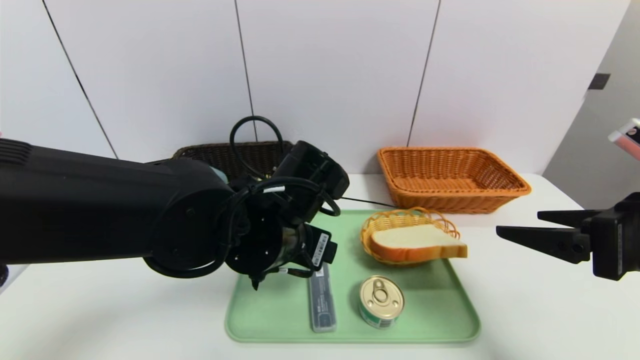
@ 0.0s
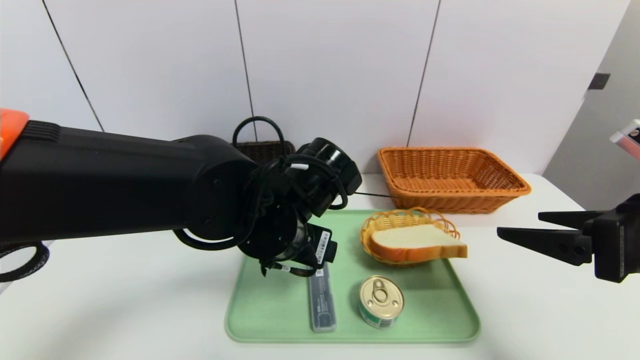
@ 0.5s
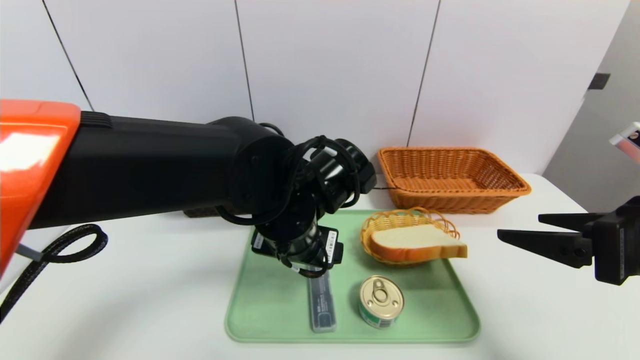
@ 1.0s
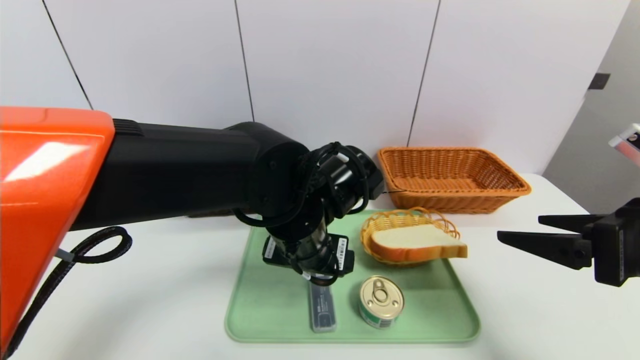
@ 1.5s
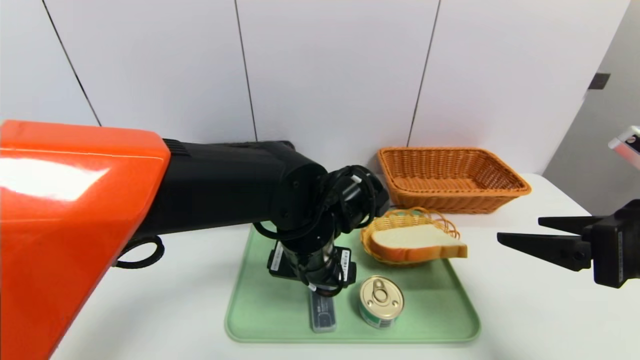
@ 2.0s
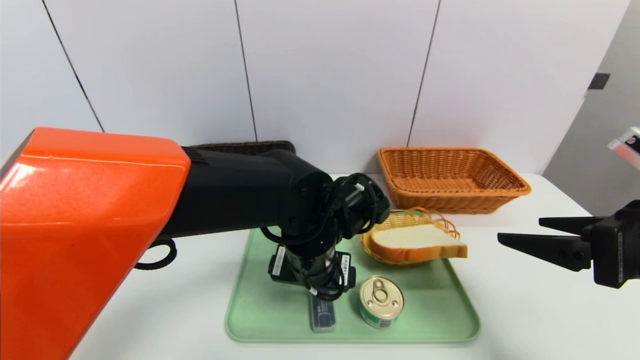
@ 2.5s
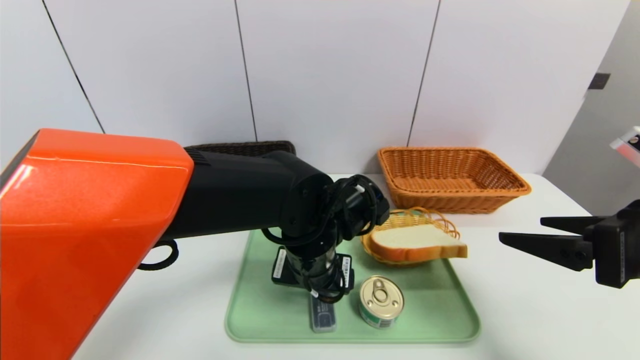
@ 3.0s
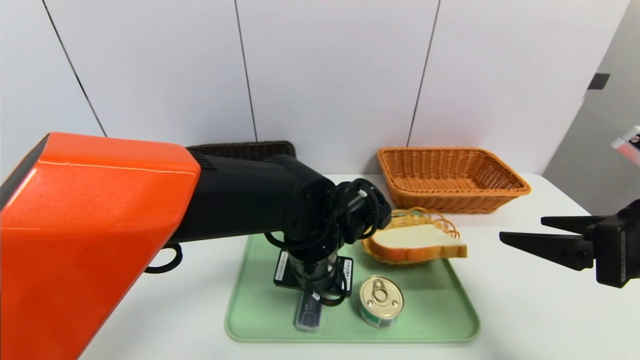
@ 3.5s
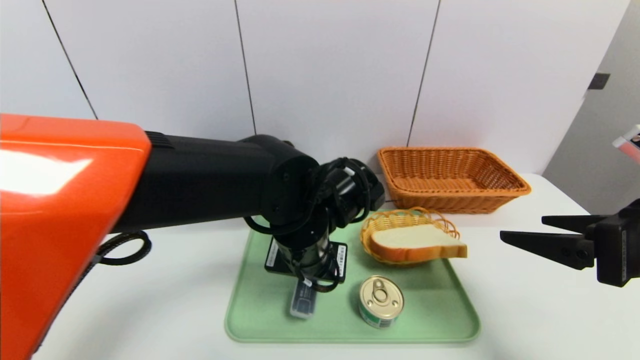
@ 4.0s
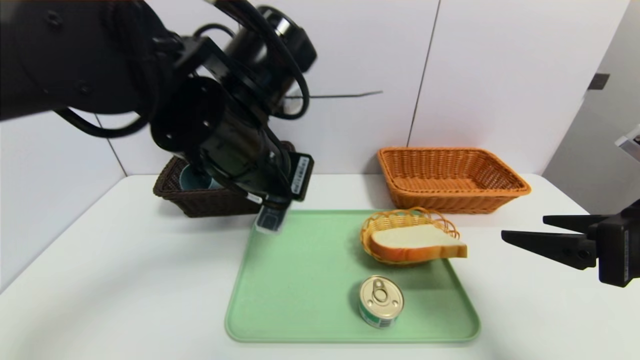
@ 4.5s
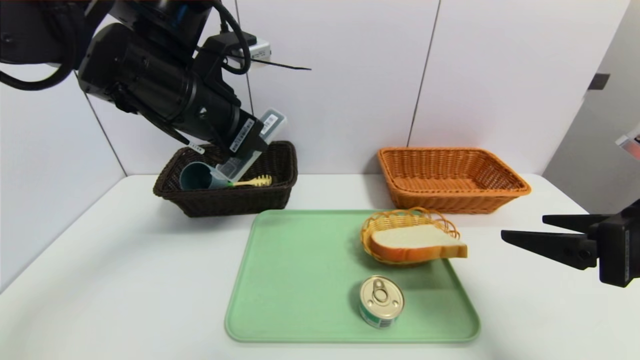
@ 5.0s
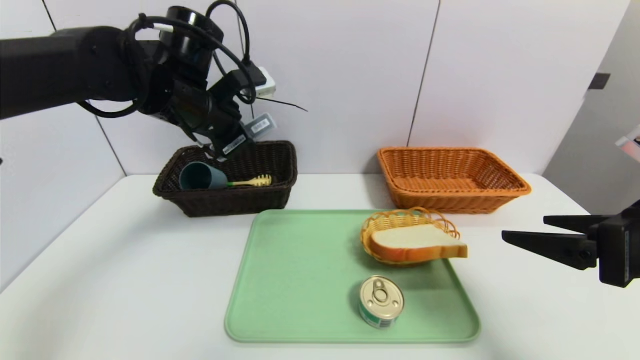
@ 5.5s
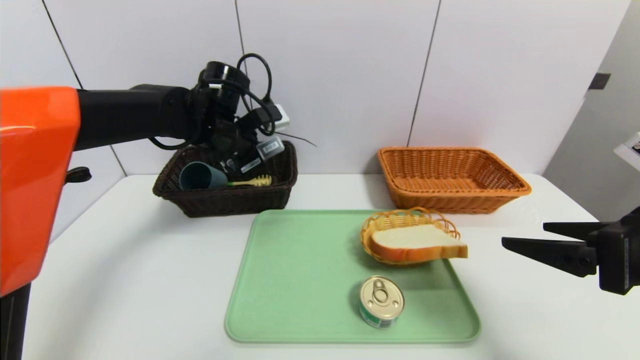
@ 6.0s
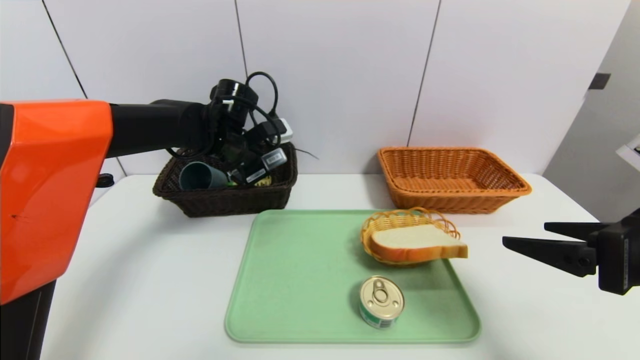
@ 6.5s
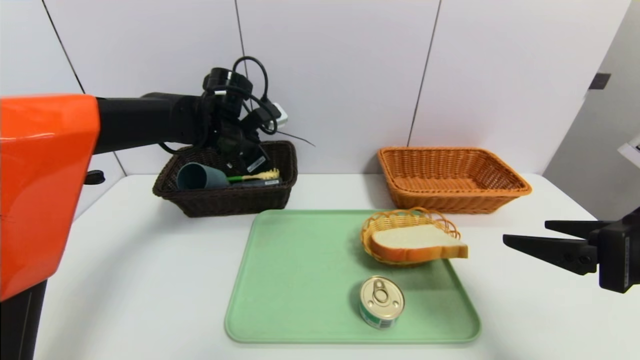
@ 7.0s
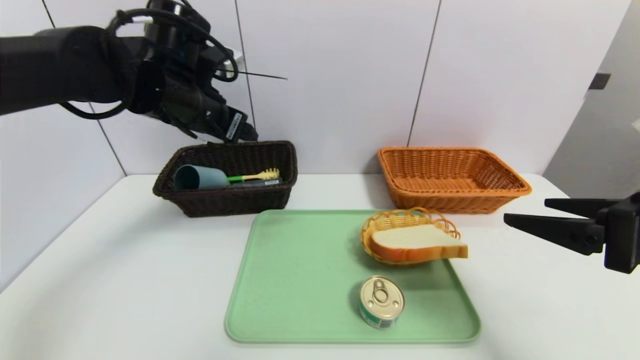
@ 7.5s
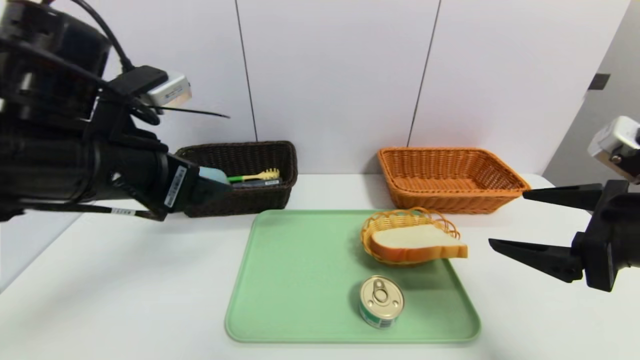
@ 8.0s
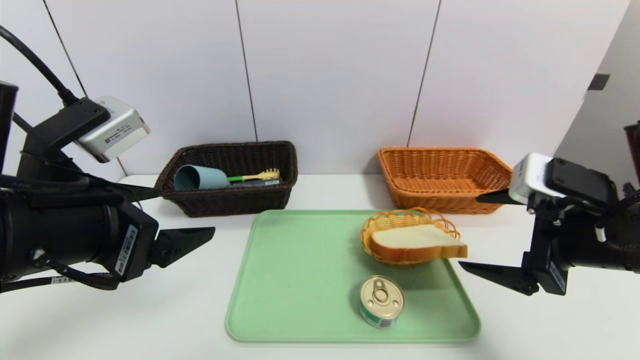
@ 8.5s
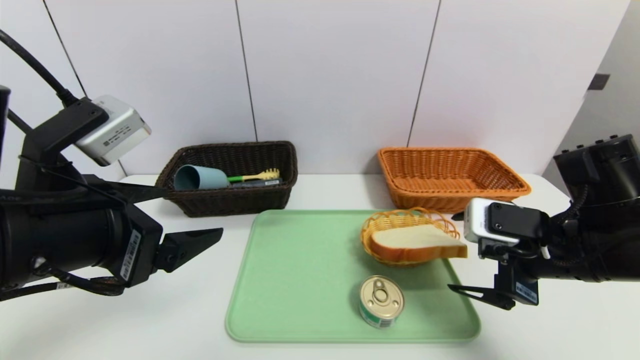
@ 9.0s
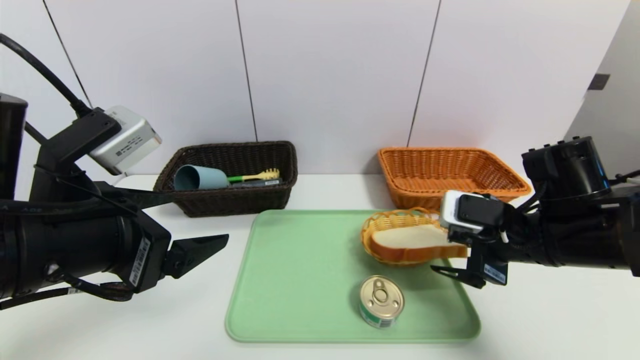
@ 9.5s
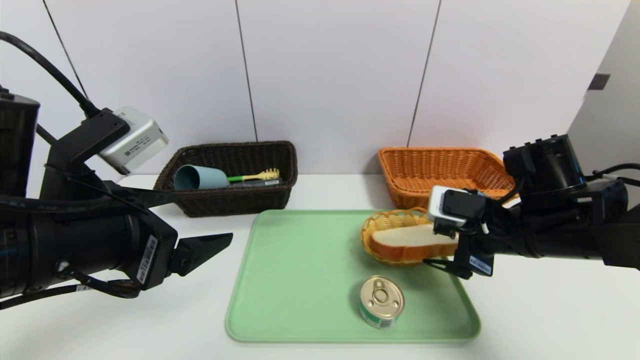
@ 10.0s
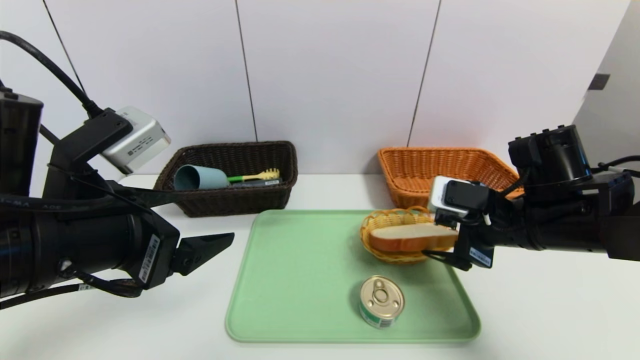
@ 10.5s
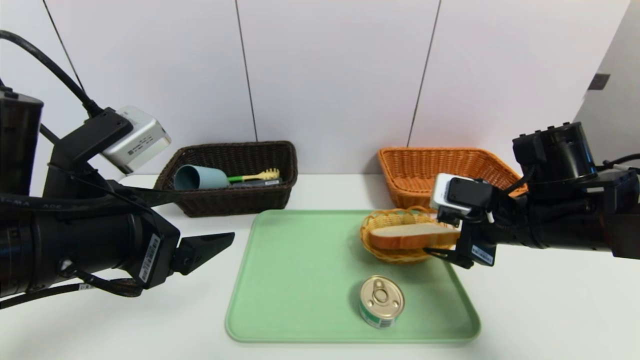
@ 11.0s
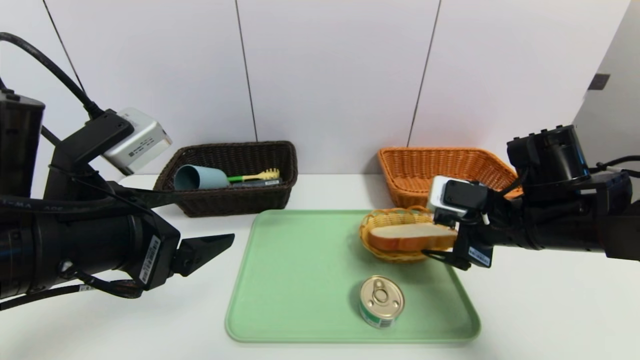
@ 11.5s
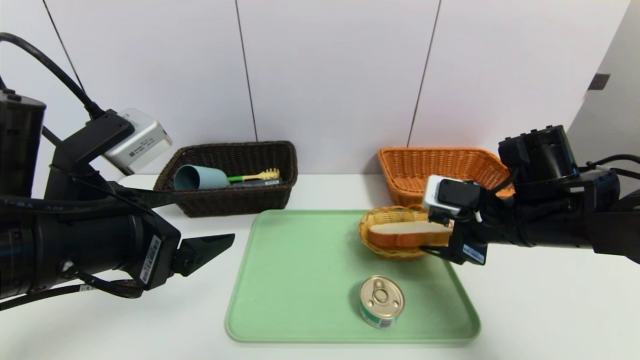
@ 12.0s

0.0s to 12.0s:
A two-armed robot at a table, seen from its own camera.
Task of the whole recording: place the food in the right basket with the right gripper, and place the non food items in the left basket with the left gripper.
Step, 0.0s to 7.0s: Grasp the compass and put it in the left basket.
2.0s to 4.0s: The left gripper closes its fingers.
4.0s to 6.0s: The left gripper goes approximately 20 cm forward and to the left.
6.0s to 8.0s: The left gripper moves backward, roughly 20 cm, and opens.
8.0s to 10.0s: The right gripper heads forward, downward and to the left, covering some 15 cm. Meanwhile the left gripper moves approximately 5 cm.
10.0s to 12.0s: Both grippers stay about where they are.

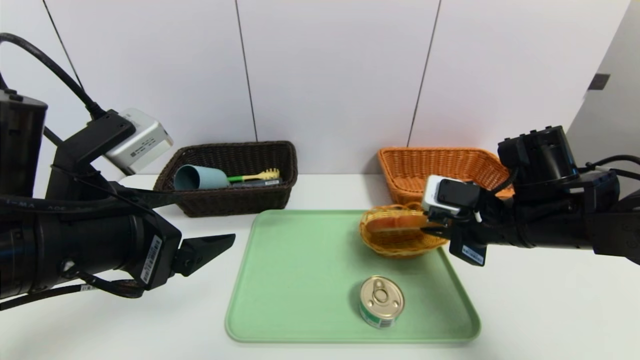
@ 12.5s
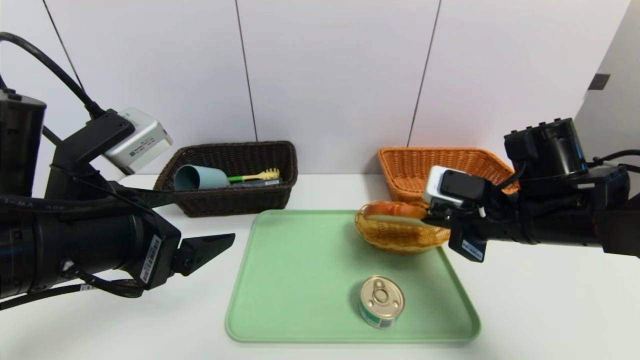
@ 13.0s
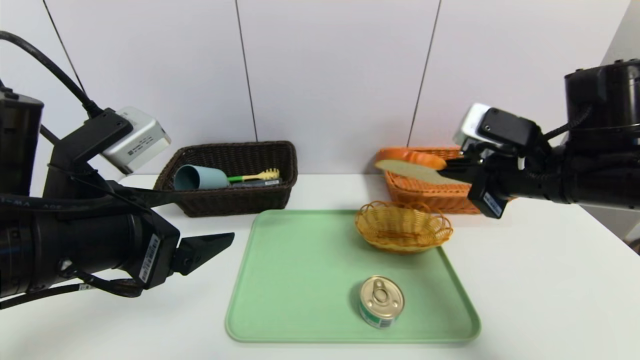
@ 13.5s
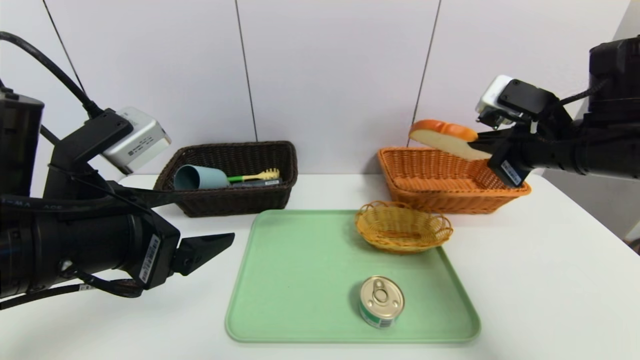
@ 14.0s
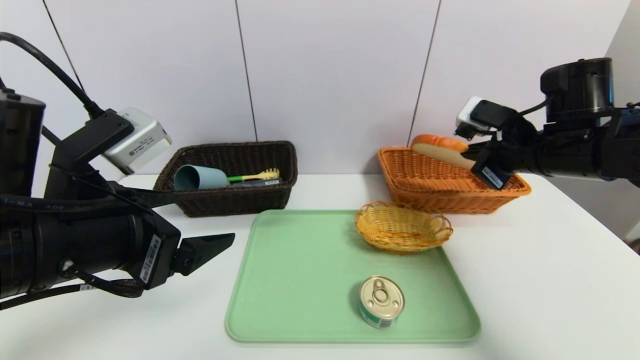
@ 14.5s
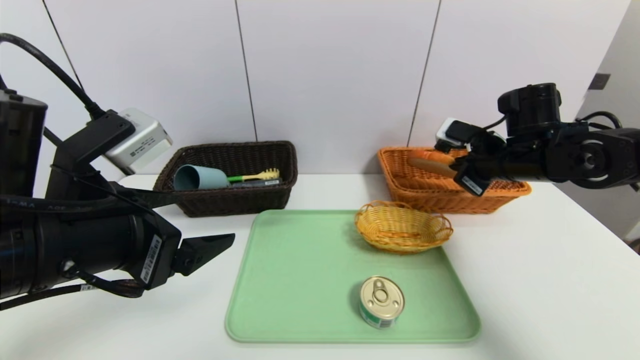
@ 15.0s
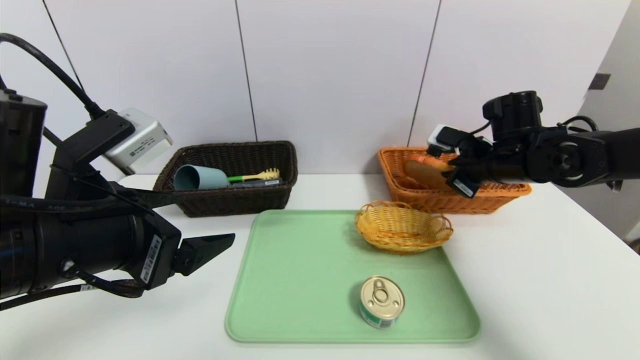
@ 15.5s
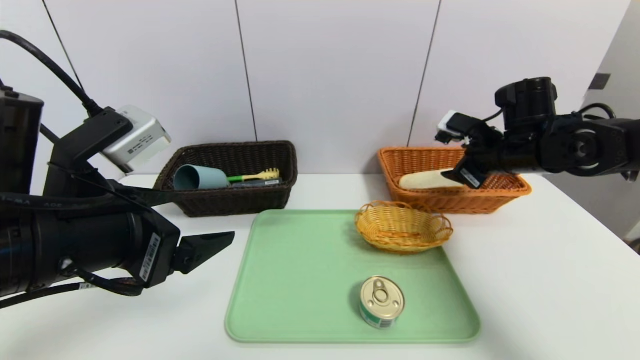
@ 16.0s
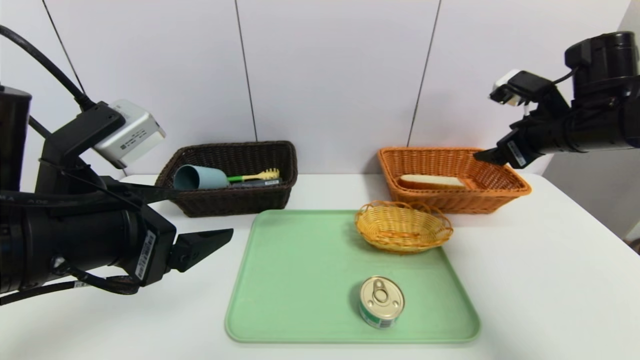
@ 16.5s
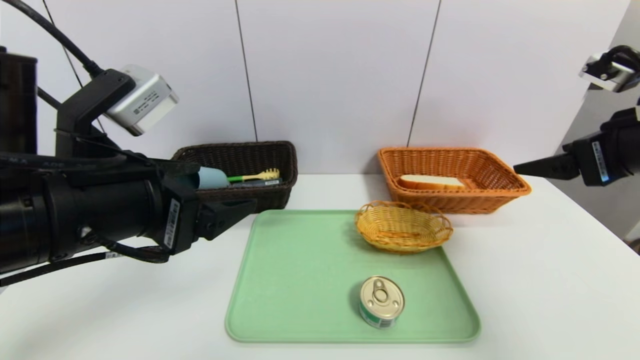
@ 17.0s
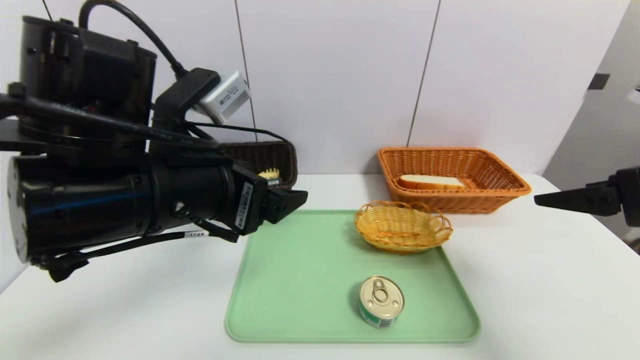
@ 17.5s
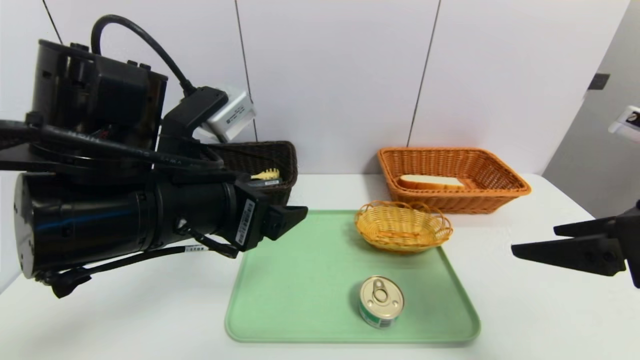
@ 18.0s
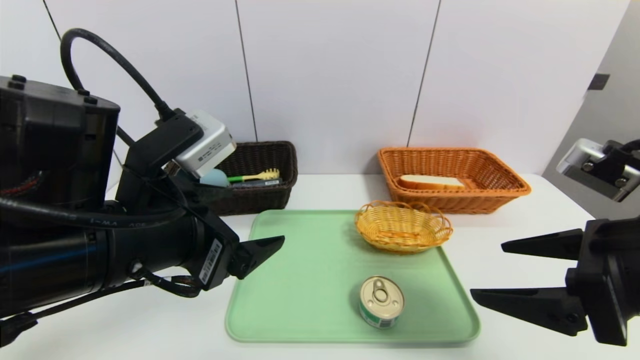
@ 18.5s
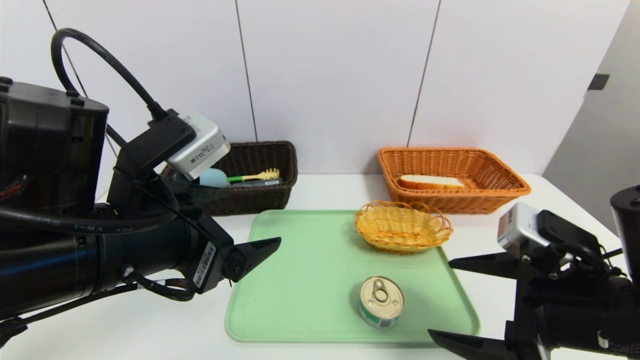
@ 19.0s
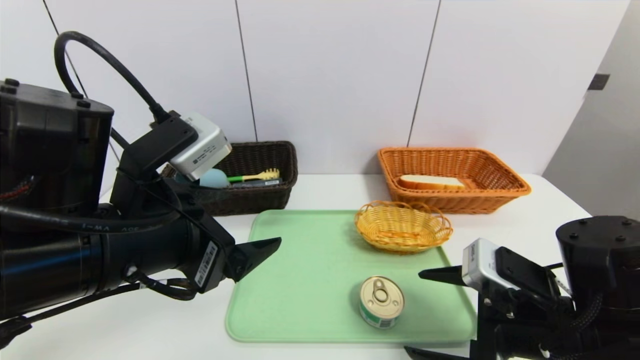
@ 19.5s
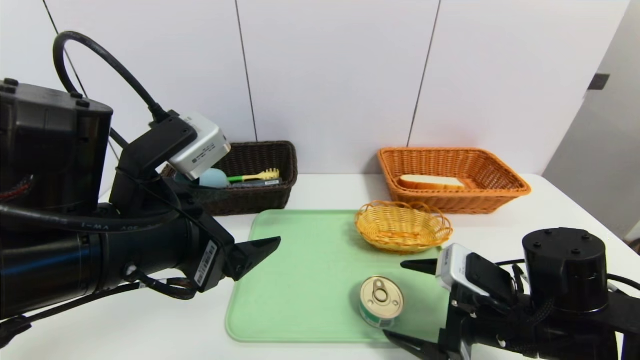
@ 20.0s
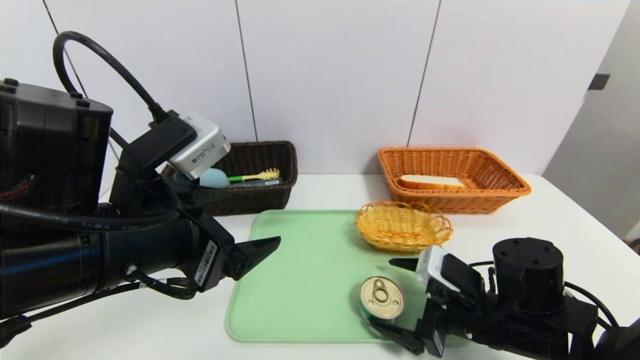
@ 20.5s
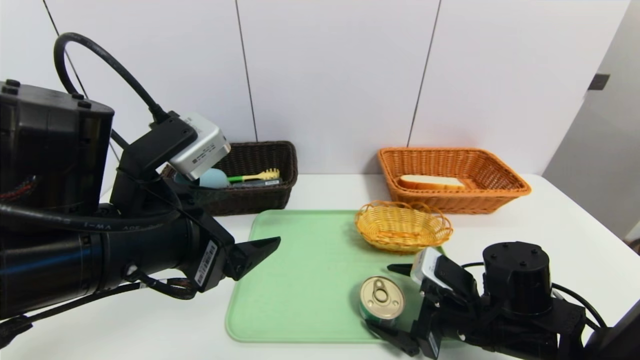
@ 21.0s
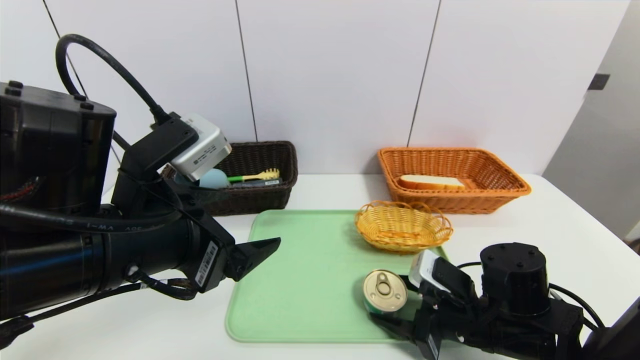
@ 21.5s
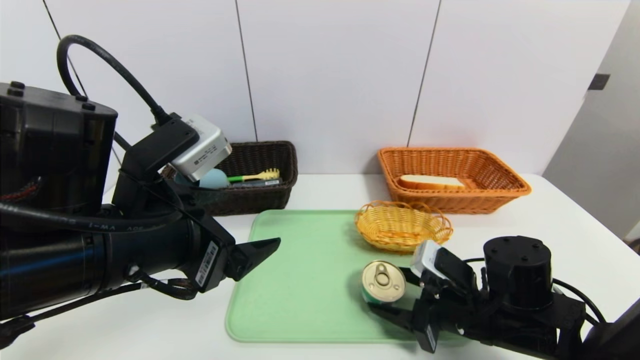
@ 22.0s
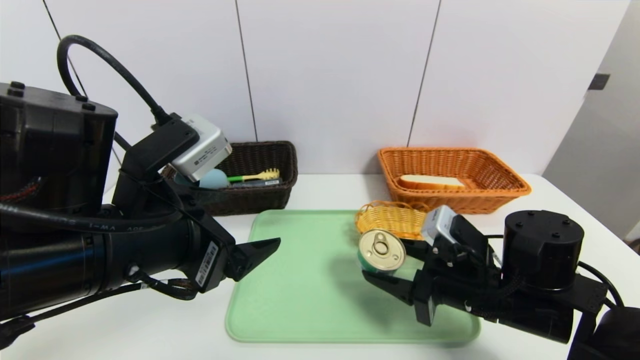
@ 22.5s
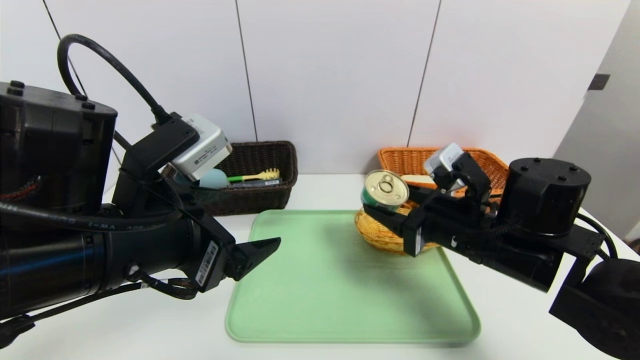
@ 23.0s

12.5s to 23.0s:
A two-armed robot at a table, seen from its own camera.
Task of the whole recording: place the food in the right basket with the right gripper, and place the non food items in the left basket with the left gripper.
Step, 12.5s to 16.5s: Grasp the bread slice and put it in the right basket.
12.5s to 14.5s: The right gripper shifts about 10 cm upward and forward.
14.5s to 16.5s: The right gripper shifts by approximately 5 cm, and opens its fingers.
16.5s to 19.0s: The right gripper goes approximately 20 cm backward, downward and to the left.
19.0s to 21.0s: The right gripper moves downward and forward, about 15 cm.
21.0s to 23.0s: The right gripper is displaced upward by roughly 10 cm, and closes up.
